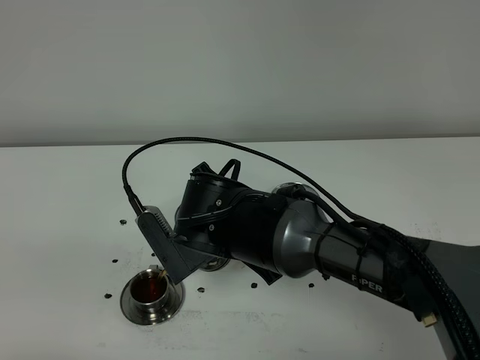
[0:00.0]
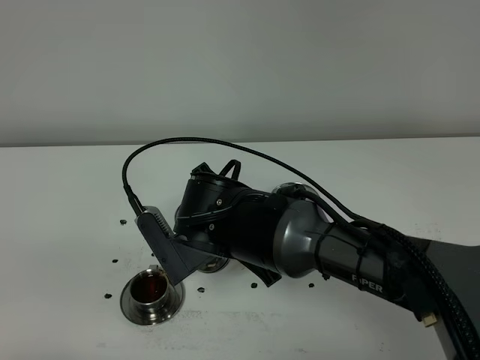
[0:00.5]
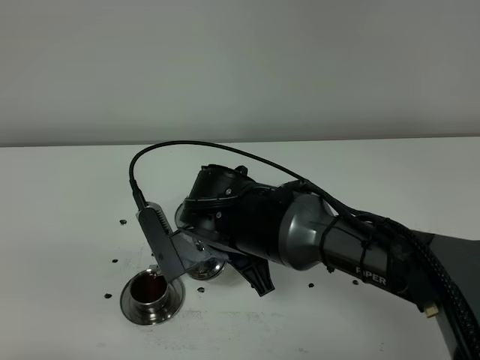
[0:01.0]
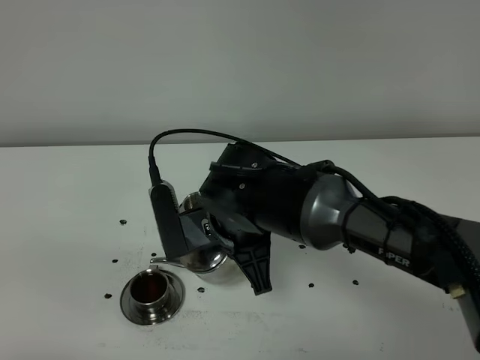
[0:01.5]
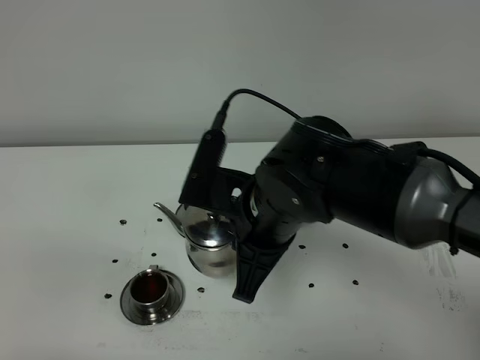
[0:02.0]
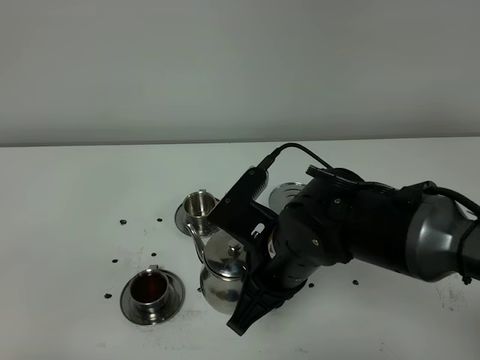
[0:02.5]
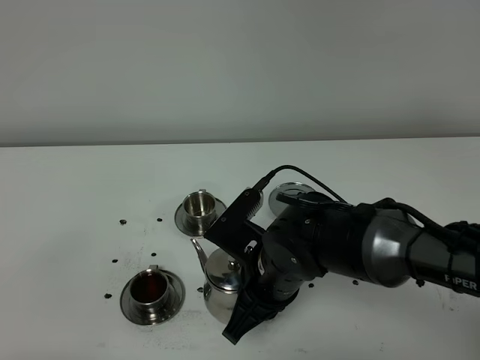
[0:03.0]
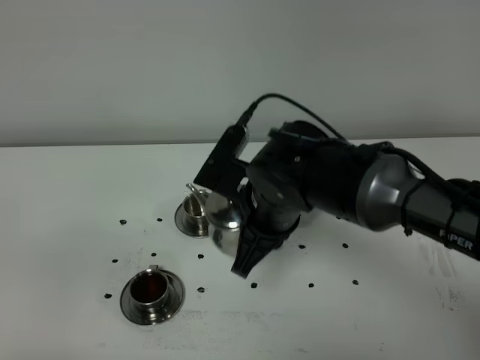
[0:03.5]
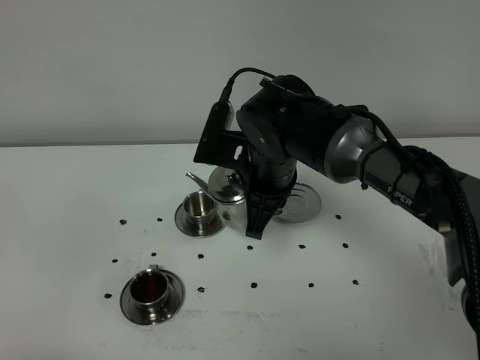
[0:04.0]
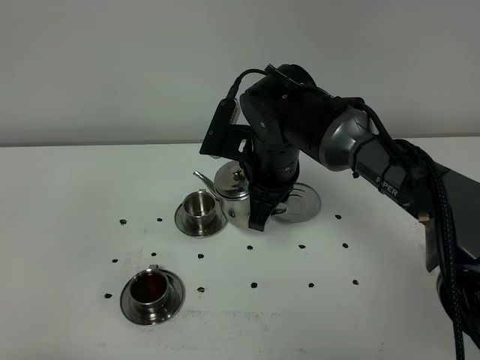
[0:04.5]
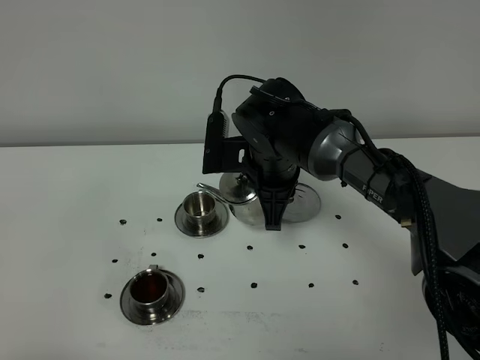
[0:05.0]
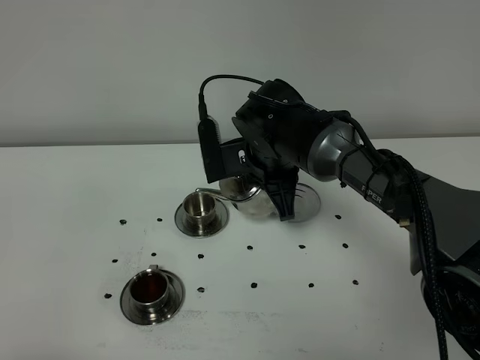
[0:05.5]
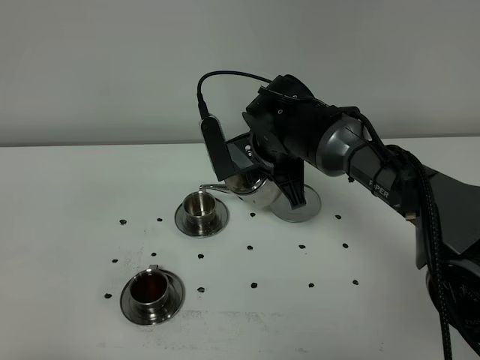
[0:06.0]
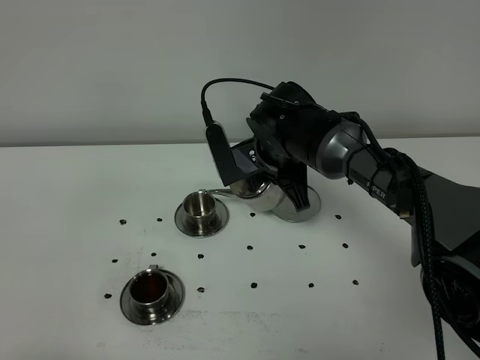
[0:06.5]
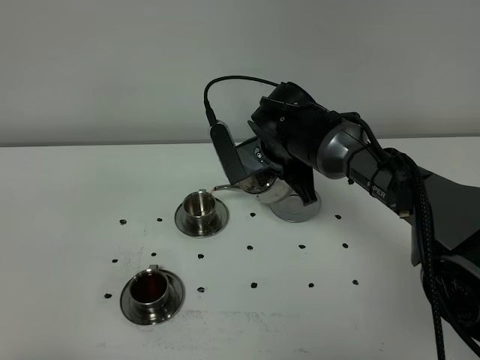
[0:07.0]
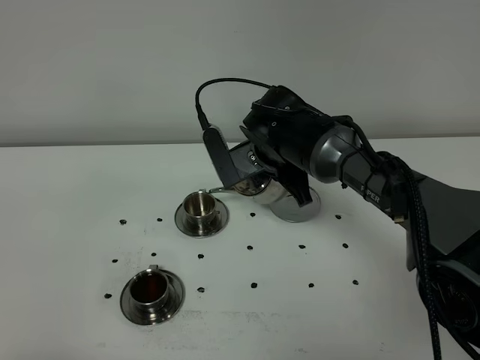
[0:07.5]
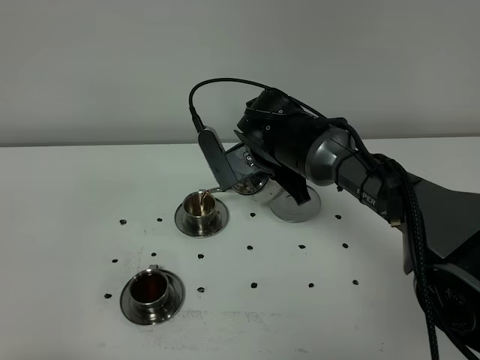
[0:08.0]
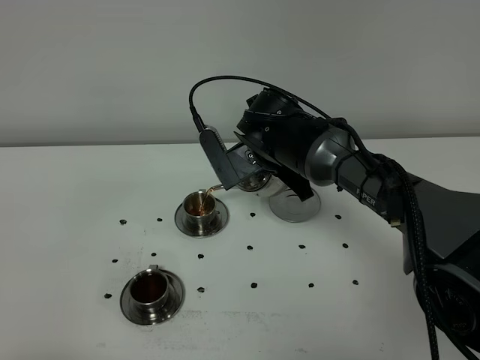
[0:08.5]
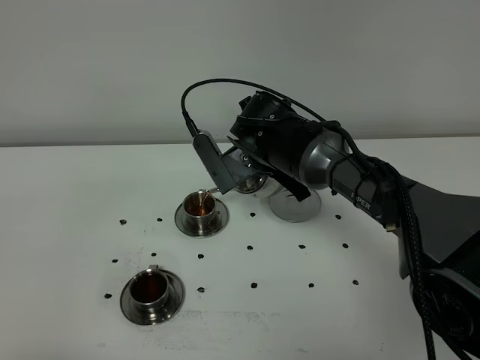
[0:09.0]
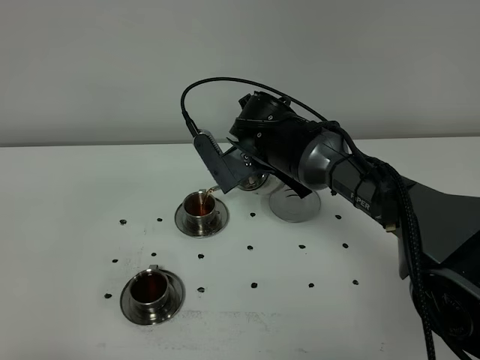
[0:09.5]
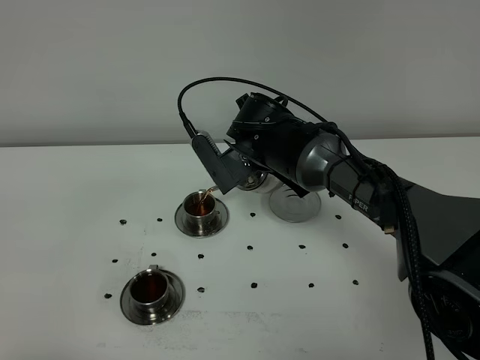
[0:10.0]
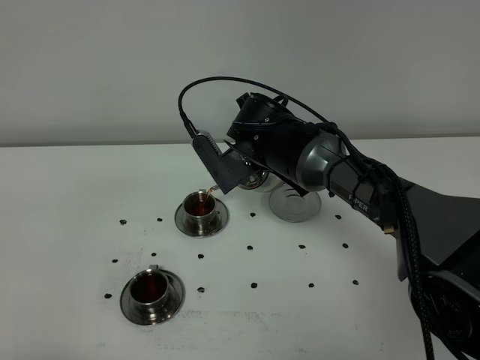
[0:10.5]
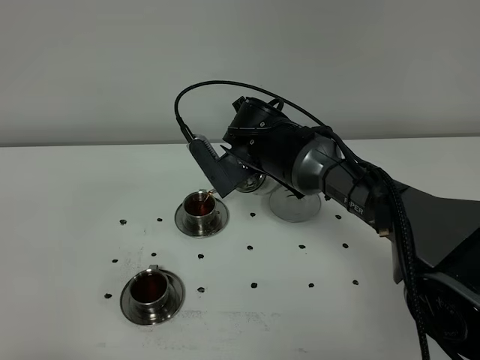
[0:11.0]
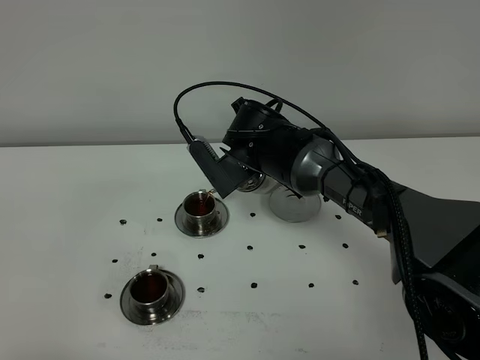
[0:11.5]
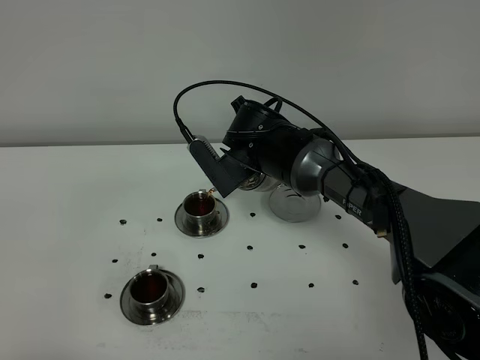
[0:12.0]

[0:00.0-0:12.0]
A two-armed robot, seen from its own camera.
Task of the whole recording: grasp the stainless steel teapot and pour the tea into the two stainless steel teacups one by one, put the stainless steel teapot back in its original place.
0:00.0 to 0:02.0: The right gripper heads to the right, covering about 5 cm.
0:02.0 to 0:04.0: The right gripper goes roughly 10 cm forward.
0:04.0 to 0:06.0: The right gripper is displaced forward by roughly 5 cm.
0:06.0 to 0:10.0: The grippers make only small movements.
0:10.0 to 0:12.0: Neither gripper changes place.

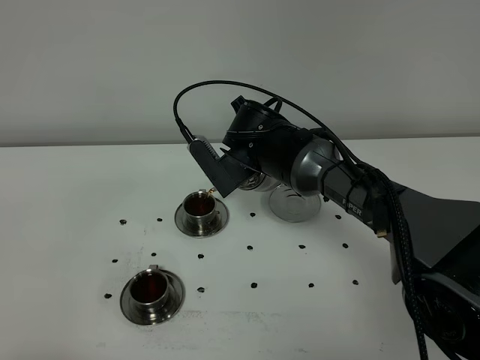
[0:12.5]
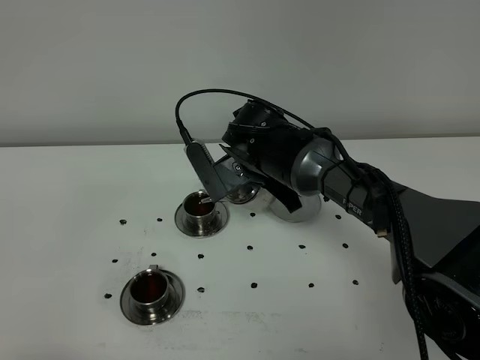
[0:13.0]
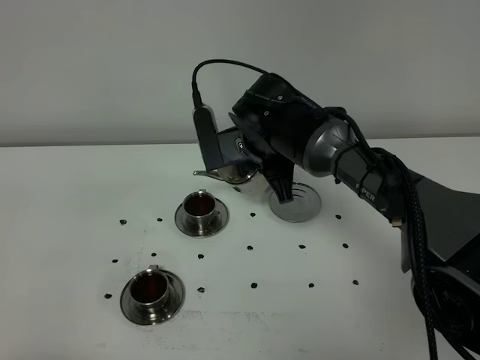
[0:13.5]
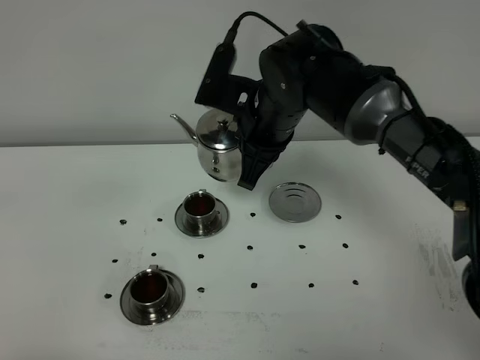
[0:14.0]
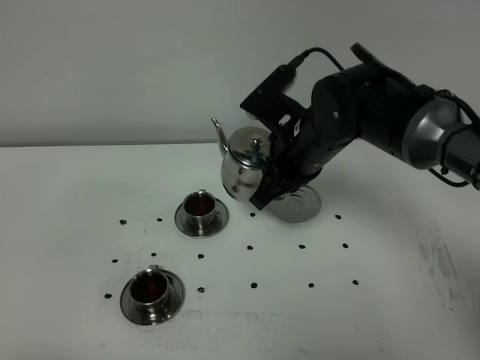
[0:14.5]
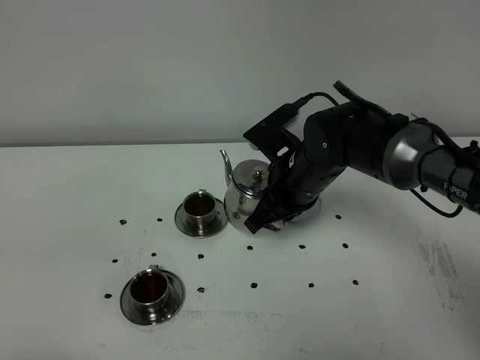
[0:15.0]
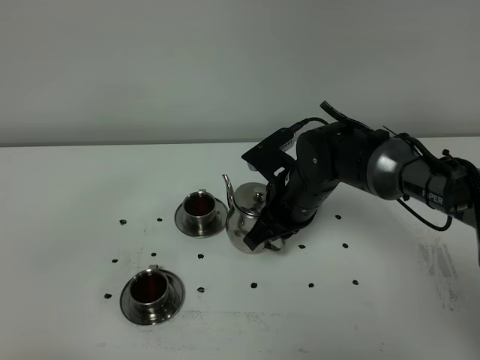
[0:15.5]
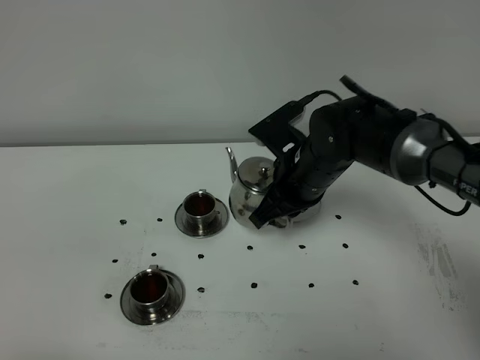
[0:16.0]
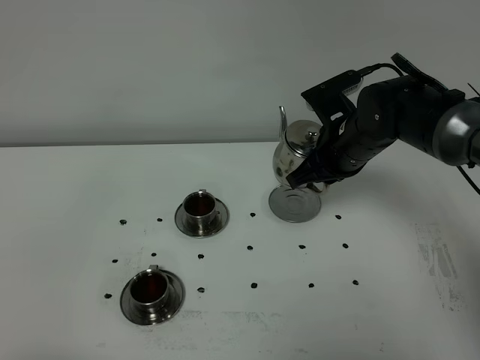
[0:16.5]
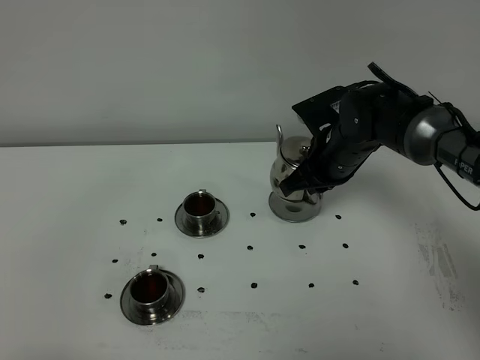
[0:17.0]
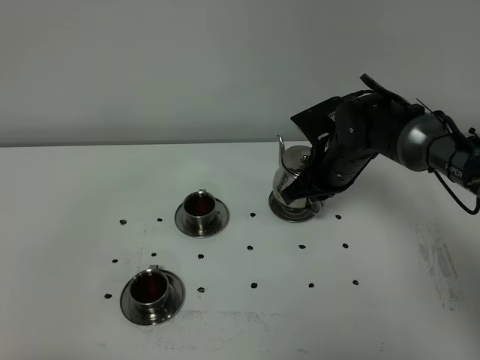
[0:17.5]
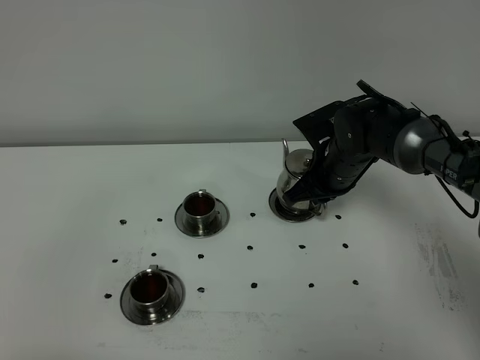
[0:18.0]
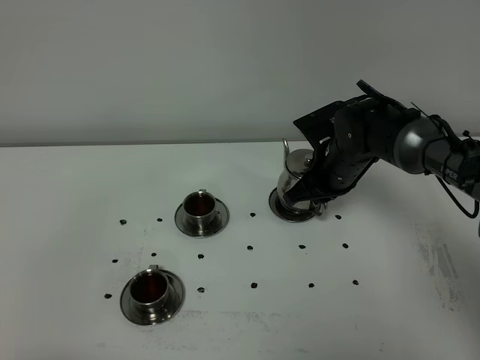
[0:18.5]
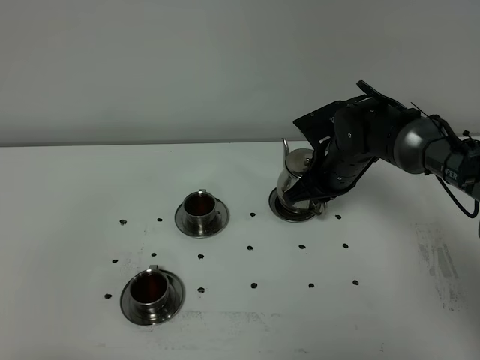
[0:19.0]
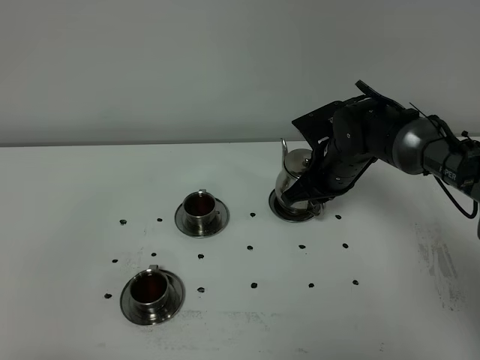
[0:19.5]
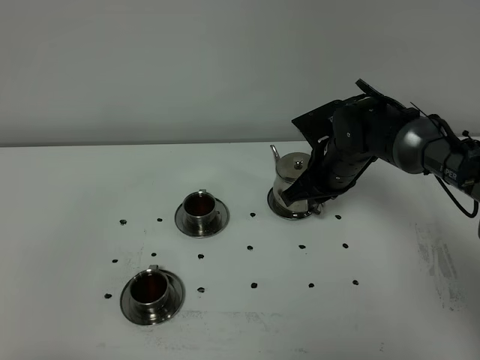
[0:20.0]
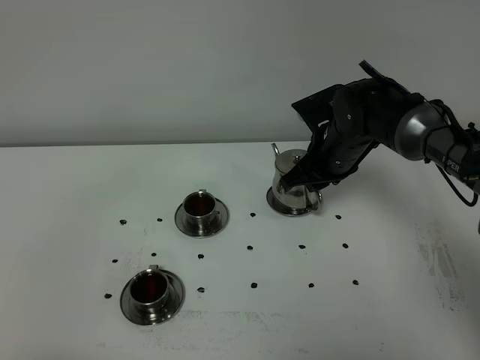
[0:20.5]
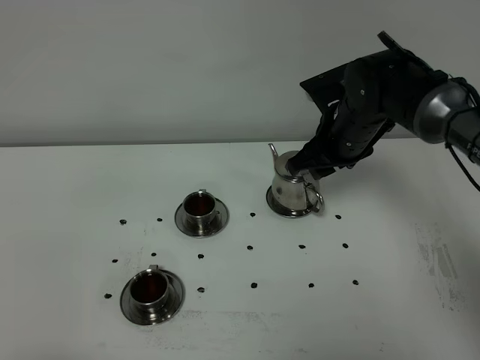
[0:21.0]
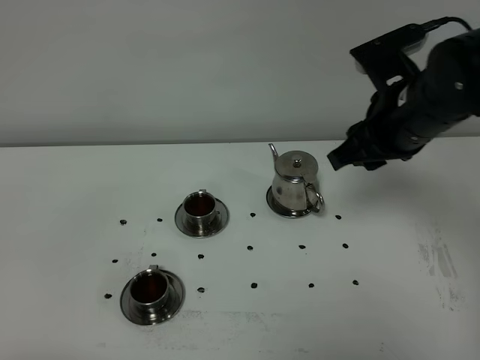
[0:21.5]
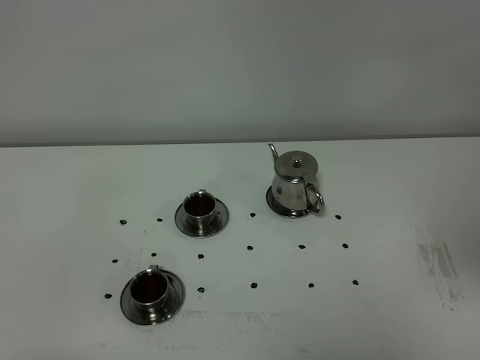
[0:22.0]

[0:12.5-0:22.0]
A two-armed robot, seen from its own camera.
Task of the whole recording: grasp the stainless steel teapot and pour the tea into the two stainless steel teacups one by one, put the stainless steel teapot back in its original place.
0:12.5 to 0:14.5: The right gripper travels to the right by roughly 5 cm.
0:14.5 to 0:16.5: The right gripper is displaced to the right by some 5 cm.
0:16.5 to 0:18.0: The right gripper moves downward, some 5 cm.
0:18.0 to 0:20.0: Neither gripper changes place.
0:20.0 to 0:22.0: The right gripper shifts about 40 cm backward, upward and to the right.

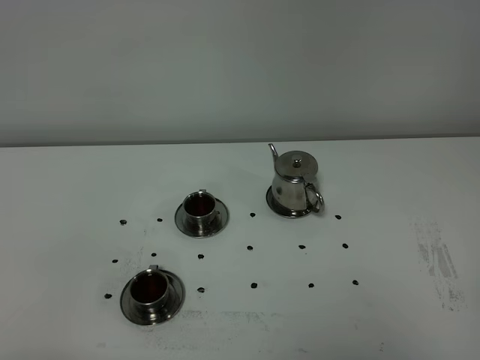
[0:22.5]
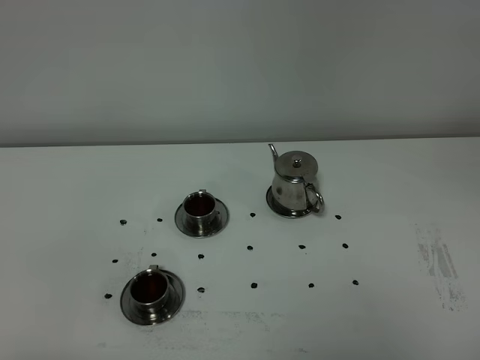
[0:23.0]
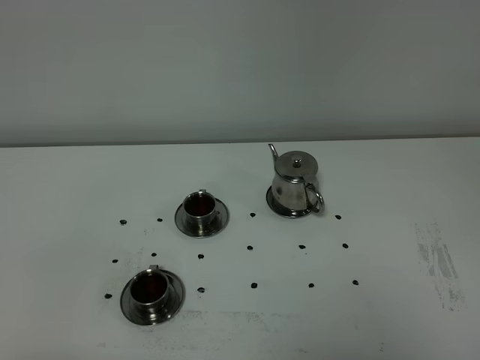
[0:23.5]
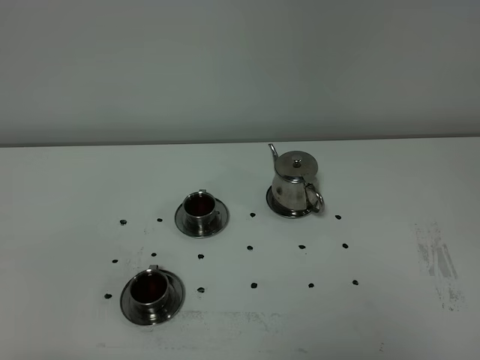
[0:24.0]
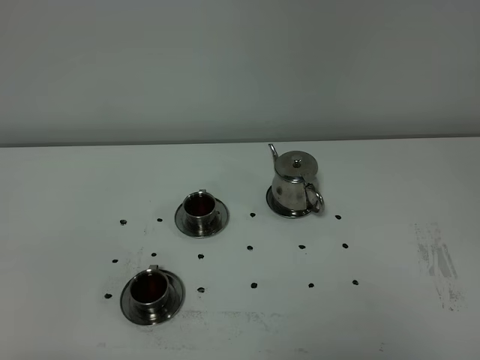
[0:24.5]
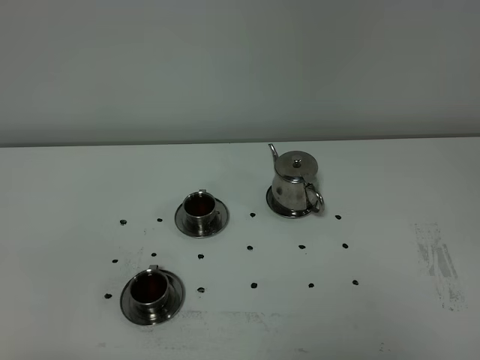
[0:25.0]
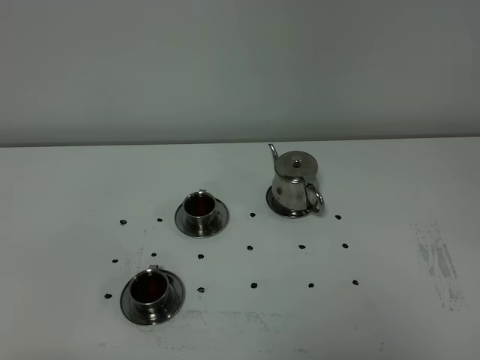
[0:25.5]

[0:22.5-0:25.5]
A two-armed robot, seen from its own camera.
Task of the whole recording: grasp the stainless steel teapot and pour the tea into the two stainless steel teacups one by one, put the stainless steel teapot back in its original place.
0:24.0 to 0:25.5: Both grippers stay put.
